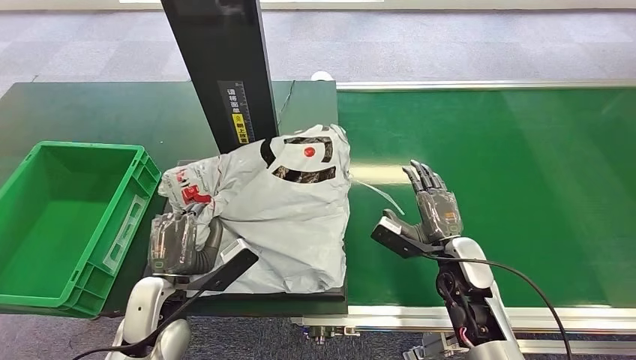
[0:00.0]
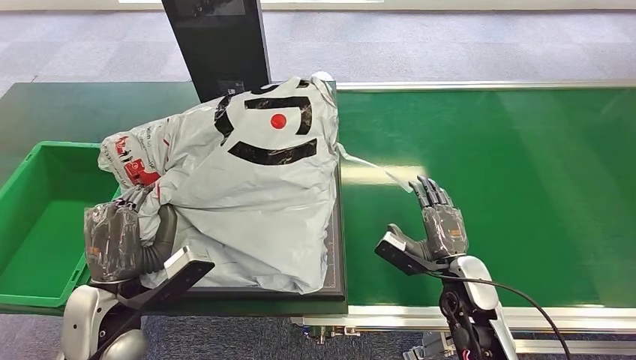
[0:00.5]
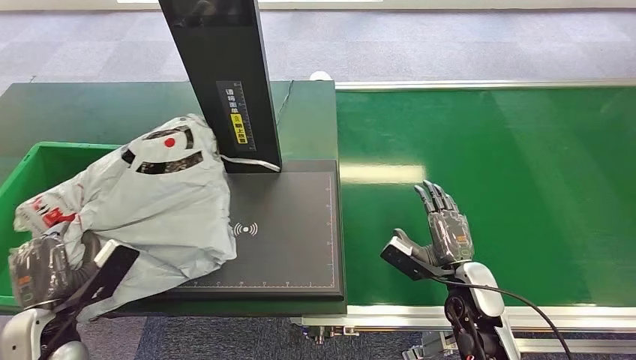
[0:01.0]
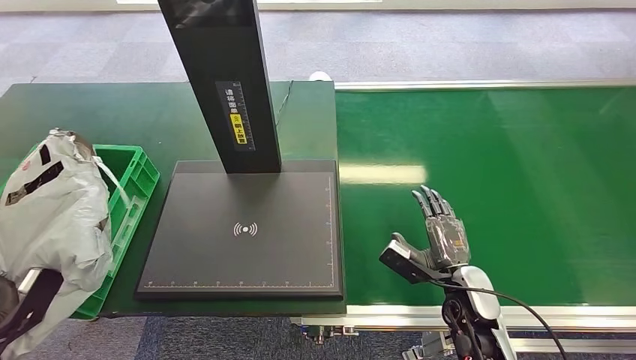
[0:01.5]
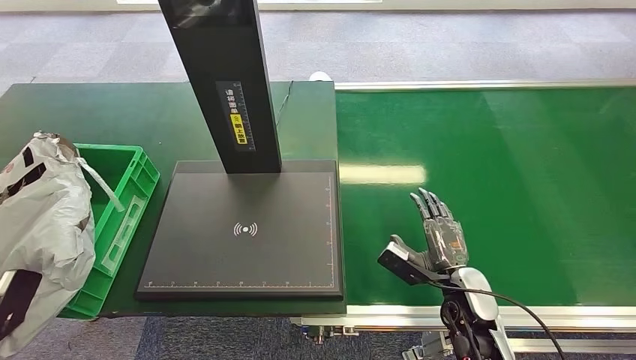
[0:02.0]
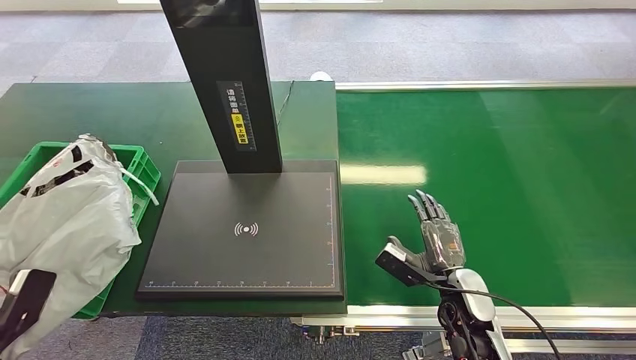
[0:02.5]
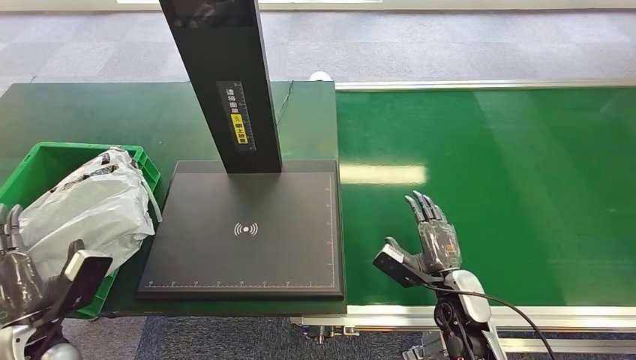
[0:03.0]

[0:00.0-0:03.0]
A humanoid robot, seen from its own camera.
Task of the whole recording: Weigh the package on the weighing device and place it in the left basket.
Step, 0:00.0 to 0:03.0: Place the package into the parcel locker.
0:01.5 to 0:03.0: The left hand heads to the right, covering about 10 cm.
